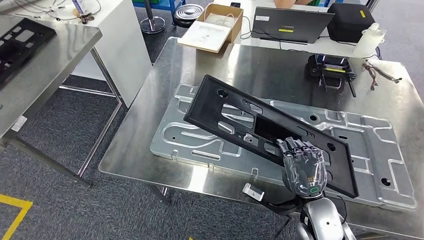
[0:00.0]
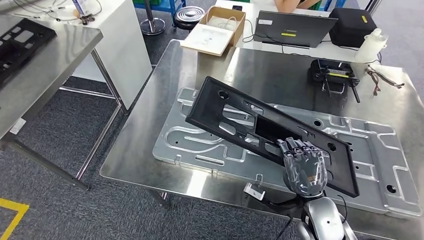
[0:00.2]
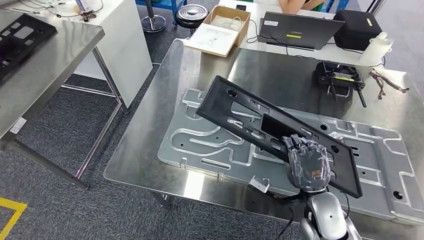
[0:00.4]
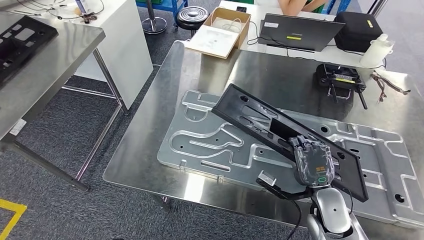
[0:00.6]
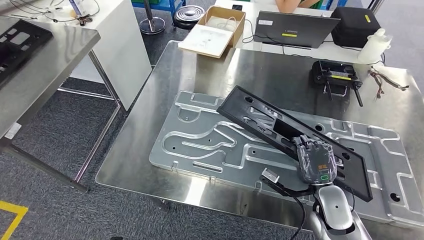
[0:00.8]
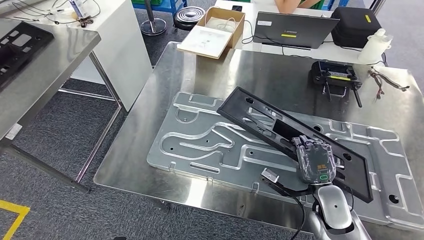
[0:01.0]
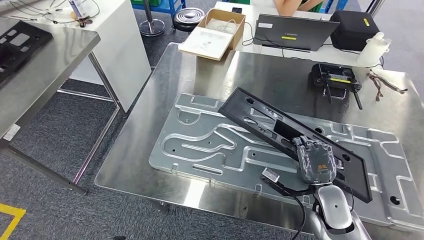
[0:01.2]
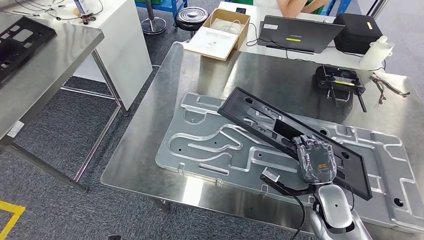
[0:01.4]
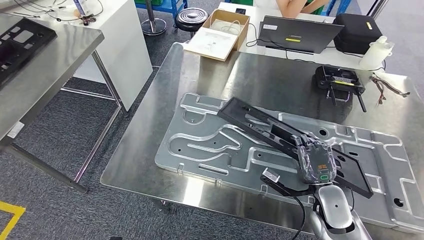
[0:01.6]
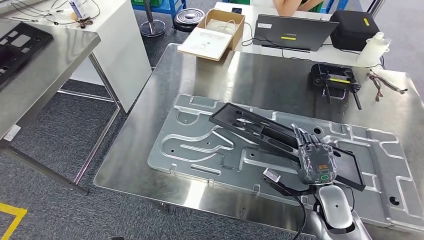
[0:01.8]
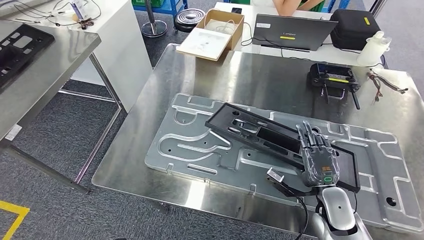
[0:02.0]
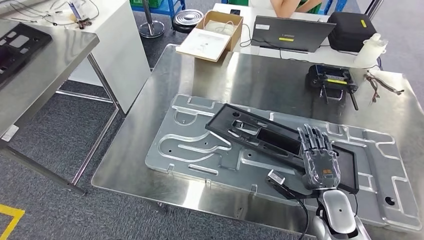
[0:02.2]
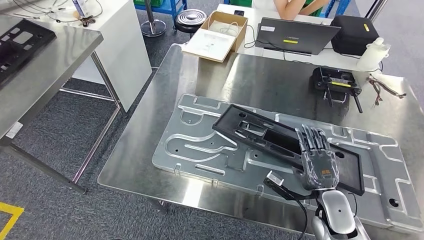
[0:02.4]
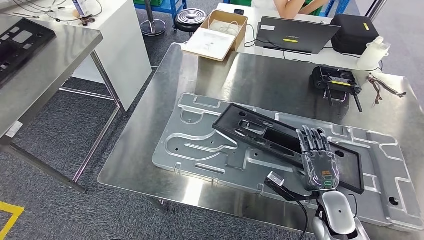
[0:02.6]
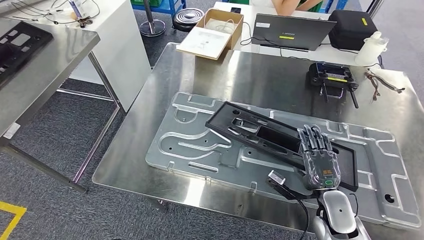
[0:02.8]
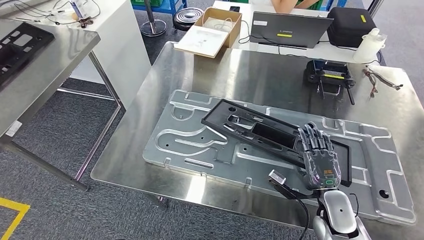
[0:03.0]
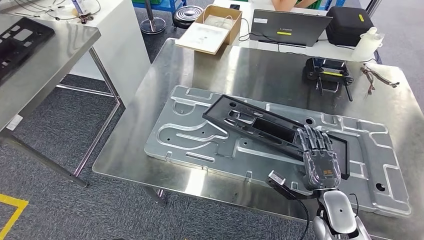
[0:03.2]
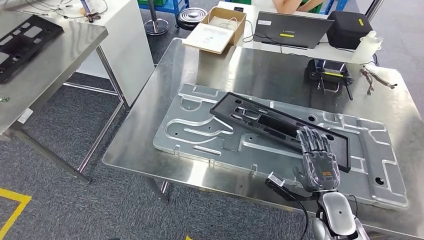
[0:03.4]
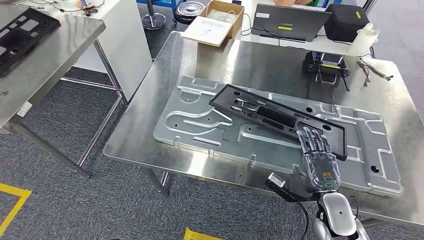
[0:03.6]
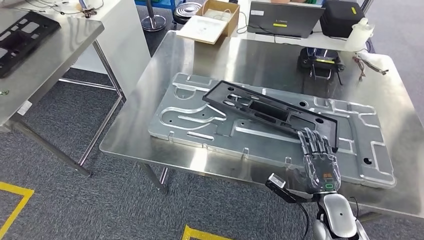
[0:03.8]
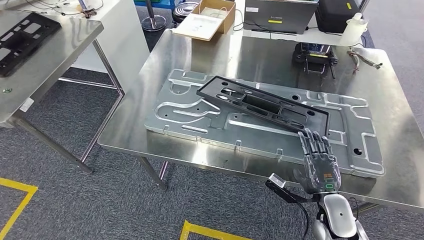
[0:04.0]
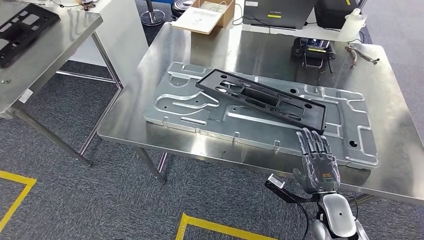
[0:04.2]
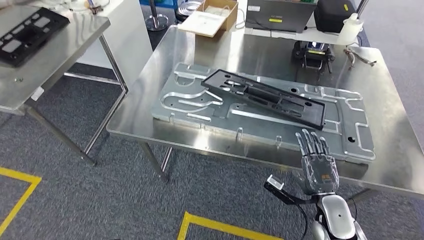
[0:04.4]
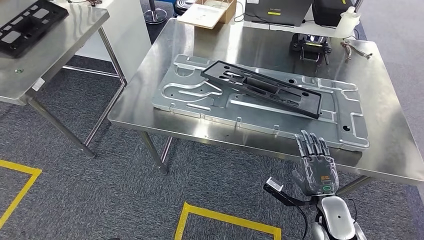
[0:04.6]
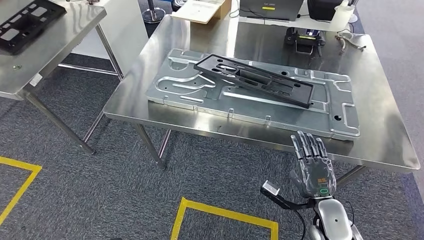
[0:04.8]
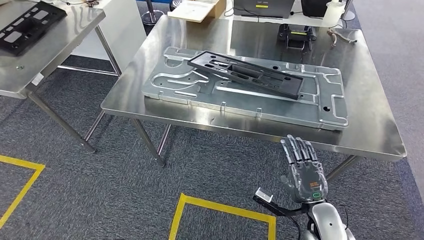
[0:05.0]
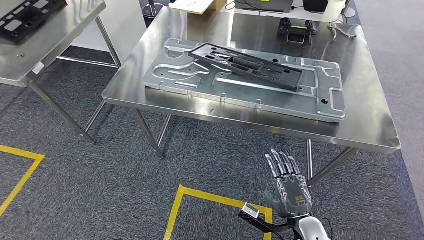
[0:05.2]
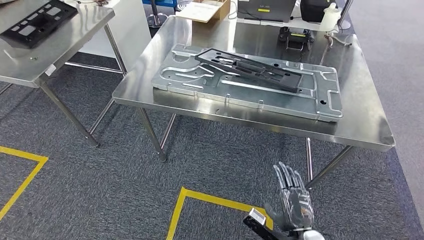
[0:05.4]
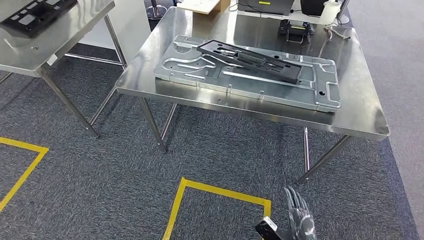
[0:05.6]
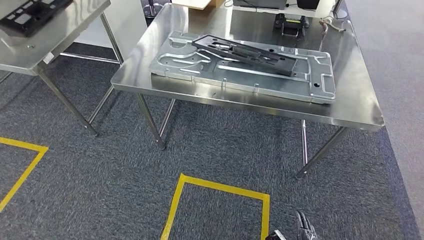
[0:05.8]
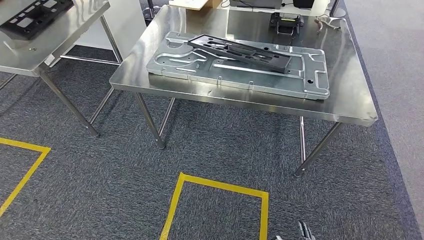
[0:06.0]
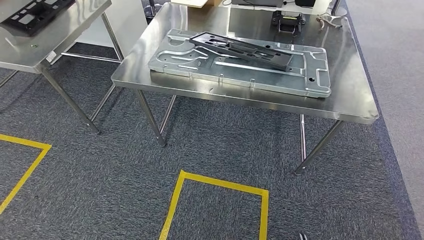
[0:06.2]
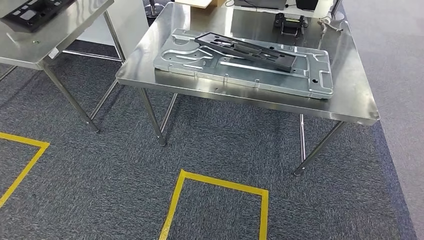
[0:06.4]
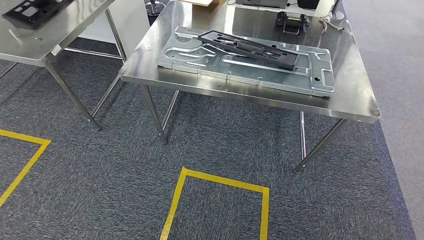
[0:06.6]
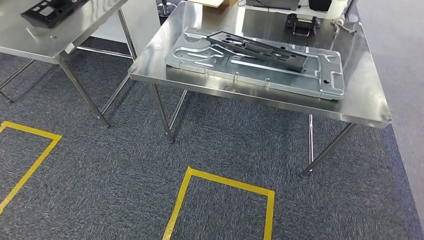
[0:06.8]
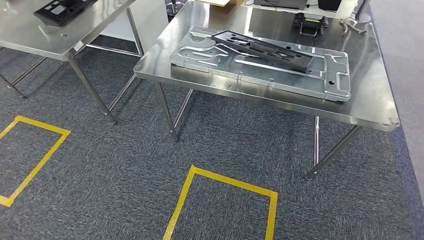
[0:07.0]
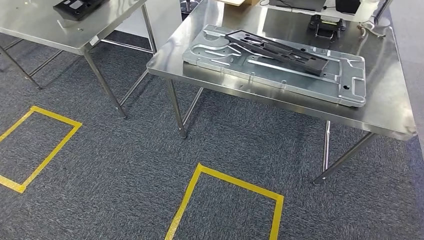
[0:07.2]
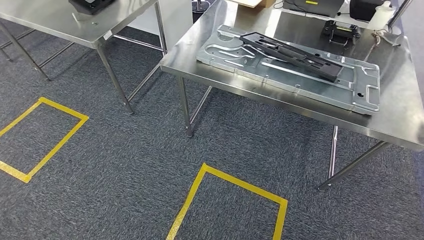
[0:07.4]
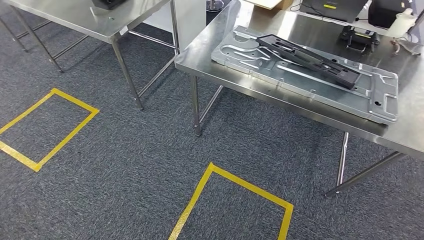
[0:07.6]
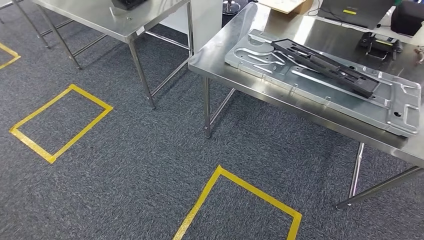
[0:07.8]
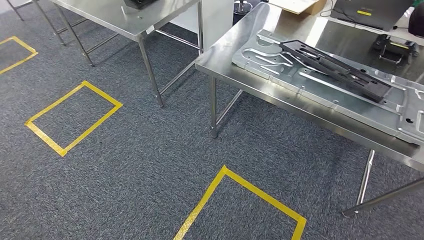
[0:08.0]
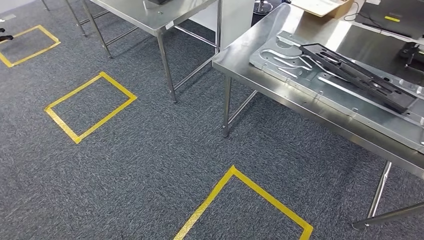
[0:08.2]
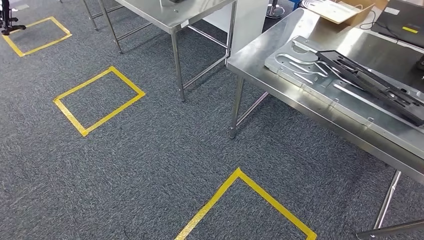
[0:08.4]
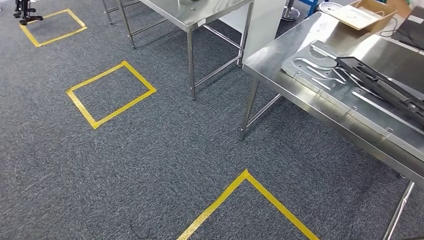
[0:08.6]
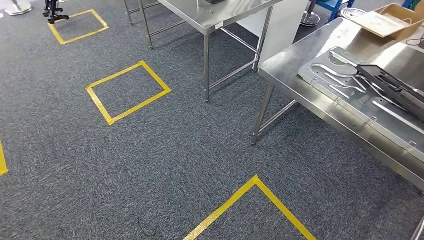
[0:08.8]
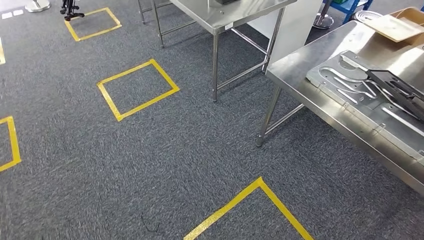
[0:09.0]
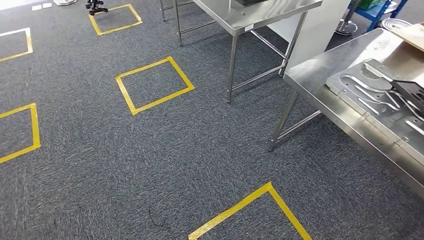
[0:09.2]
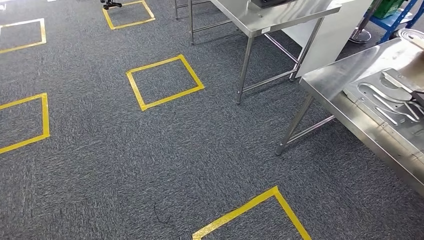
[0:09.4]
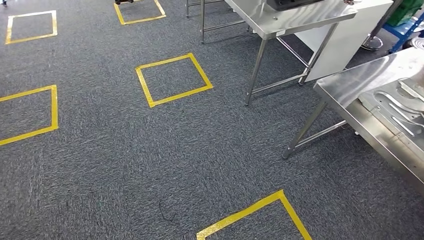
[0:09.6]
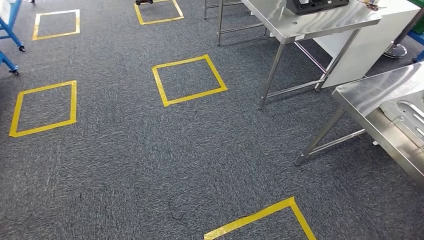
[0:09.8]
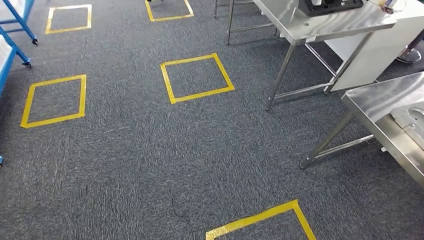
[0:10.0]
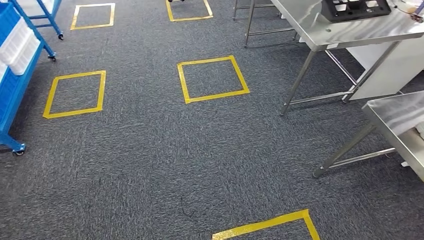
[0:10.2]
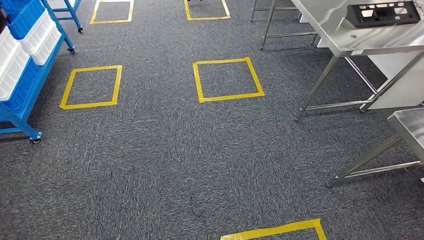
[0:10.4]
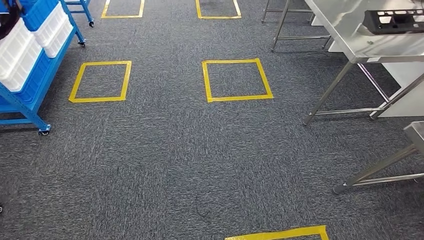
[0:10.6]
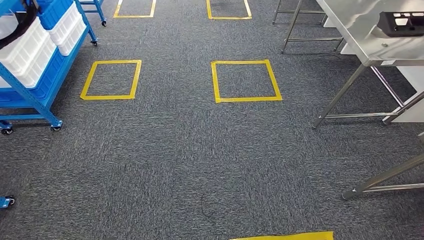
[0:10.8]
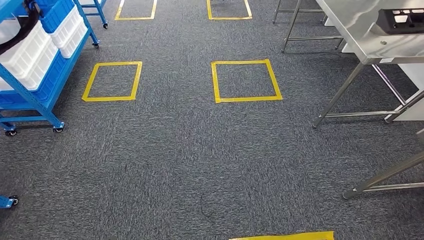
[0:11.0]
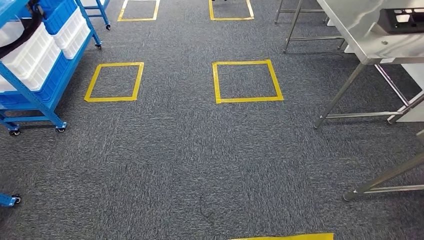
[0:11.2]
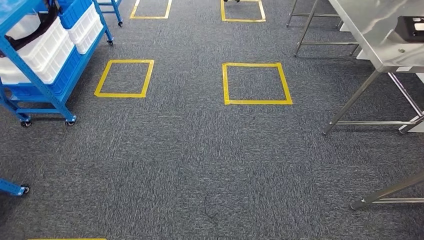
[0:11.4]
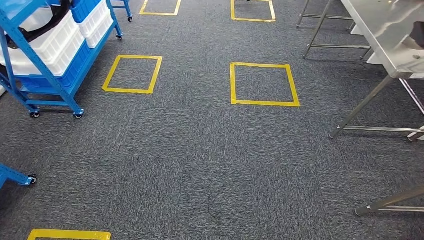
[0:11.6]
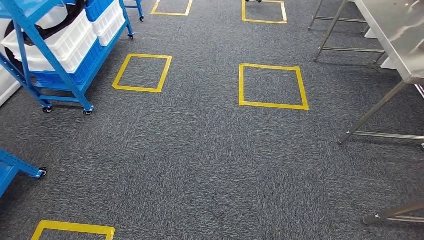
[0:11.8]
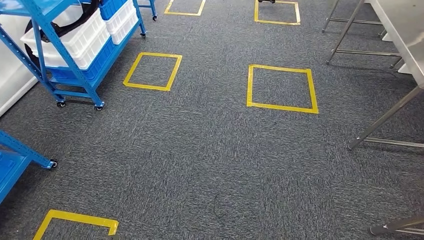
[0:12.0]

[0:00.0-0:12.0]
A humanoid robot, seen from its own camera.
Step, 0:00.0 to 0:05.4: Insert the large material into the corresponding slot on the workbench.

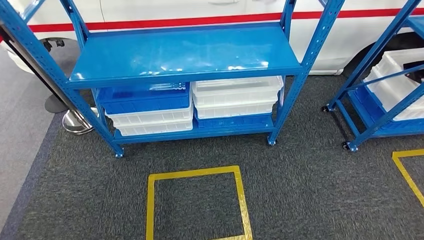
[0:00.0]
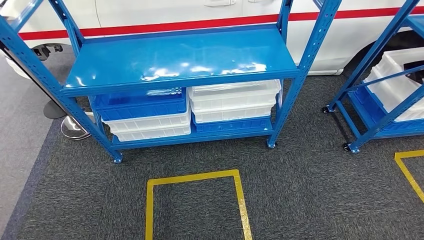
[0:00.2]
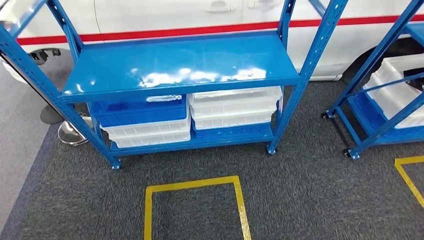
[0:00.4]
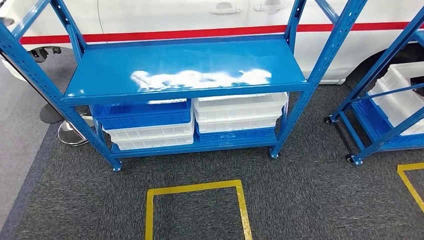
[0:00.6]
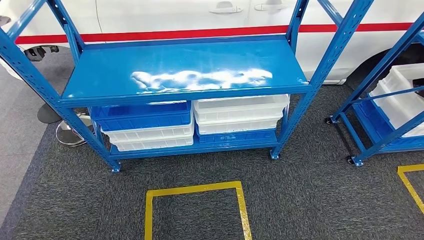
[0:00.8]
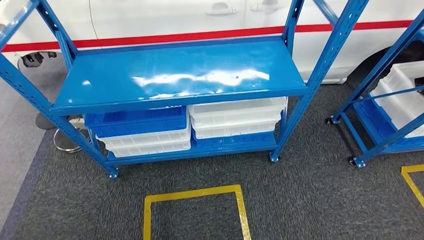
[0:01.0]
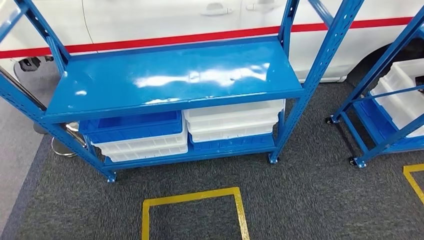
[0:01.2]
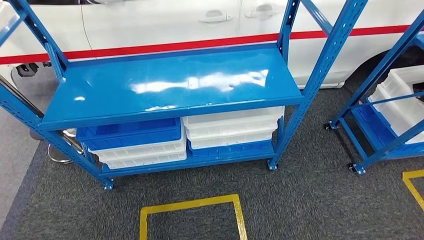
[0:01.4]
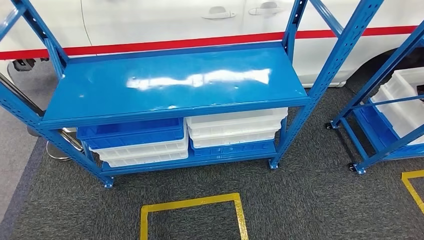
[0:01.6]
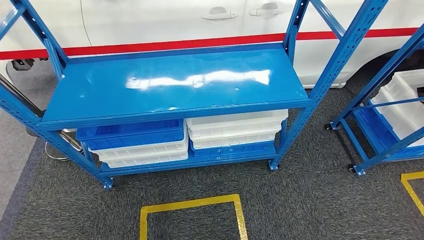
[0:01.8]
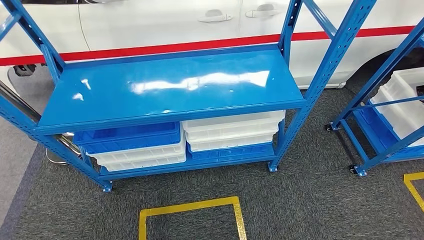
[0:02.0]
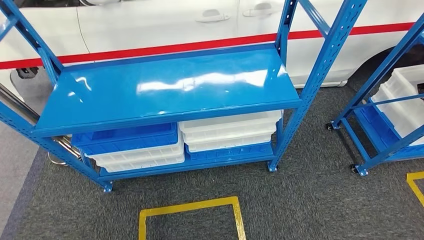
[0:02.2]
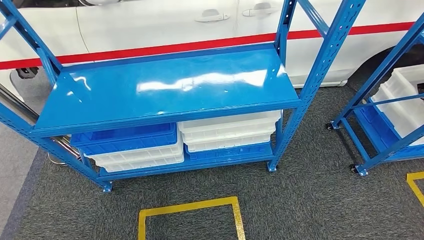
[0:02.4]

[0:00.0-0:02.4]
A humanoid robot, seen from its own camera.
Step, 0:00.0 to 0:02.4: Move to the initial position of the shelf.

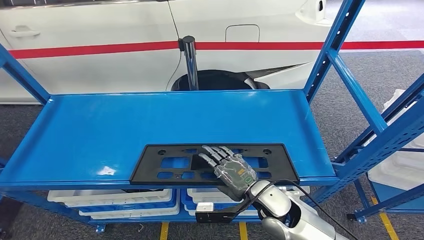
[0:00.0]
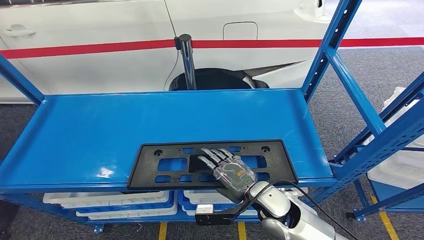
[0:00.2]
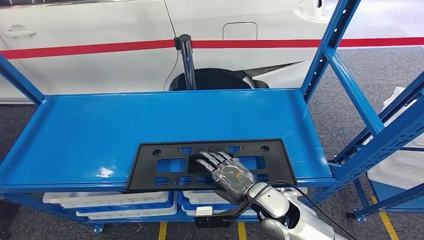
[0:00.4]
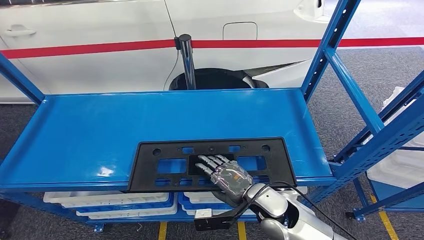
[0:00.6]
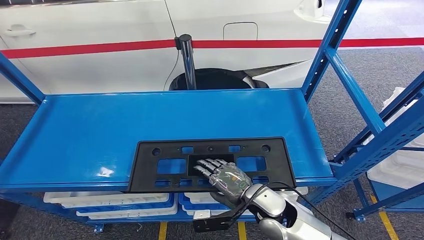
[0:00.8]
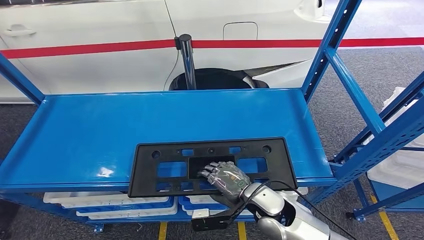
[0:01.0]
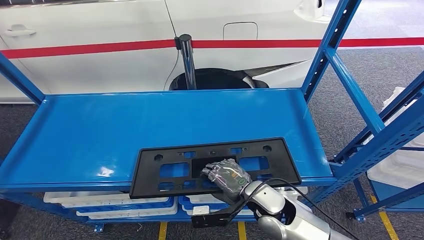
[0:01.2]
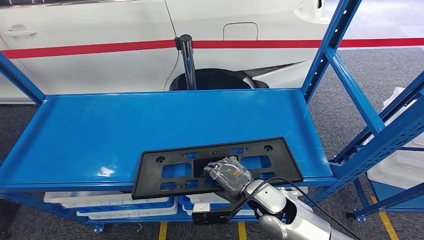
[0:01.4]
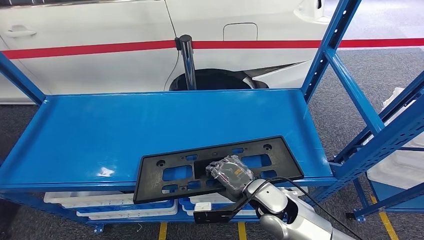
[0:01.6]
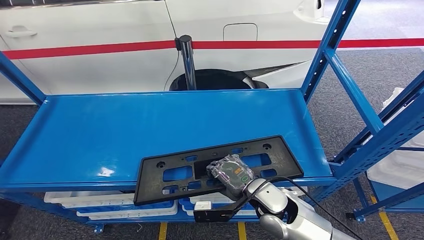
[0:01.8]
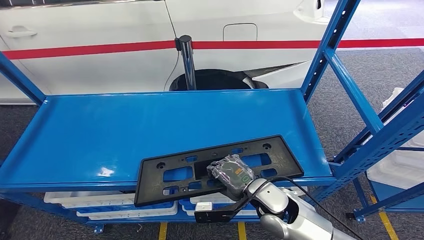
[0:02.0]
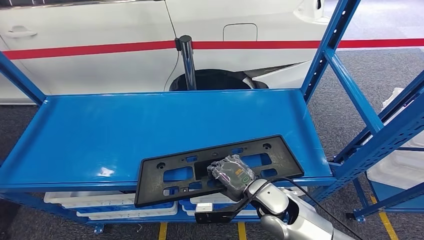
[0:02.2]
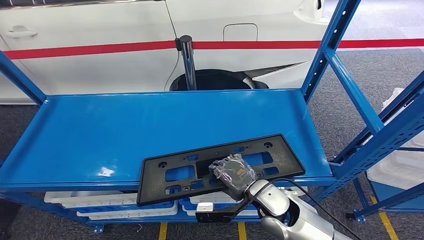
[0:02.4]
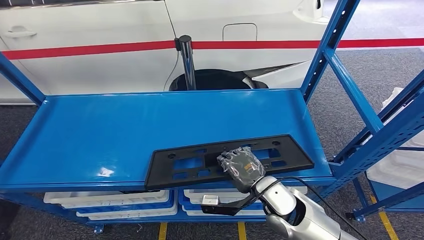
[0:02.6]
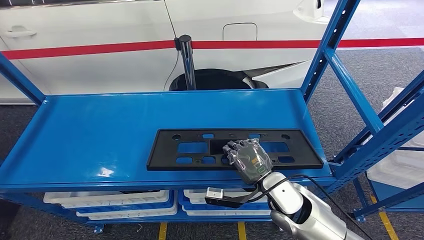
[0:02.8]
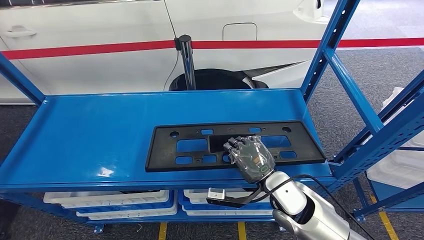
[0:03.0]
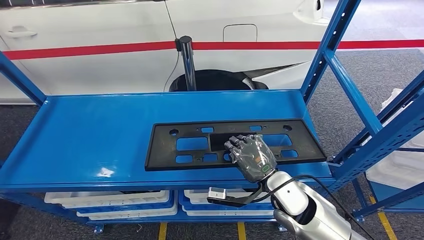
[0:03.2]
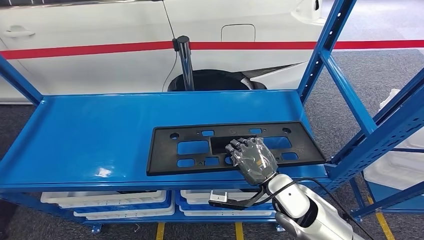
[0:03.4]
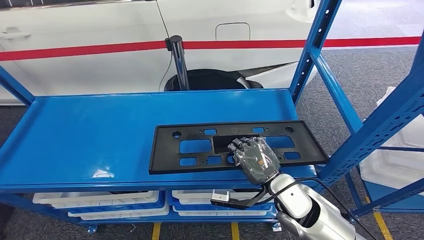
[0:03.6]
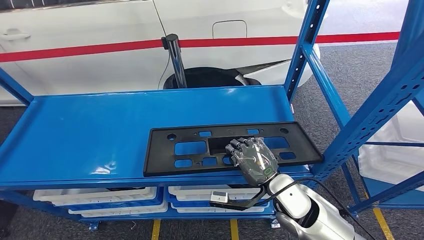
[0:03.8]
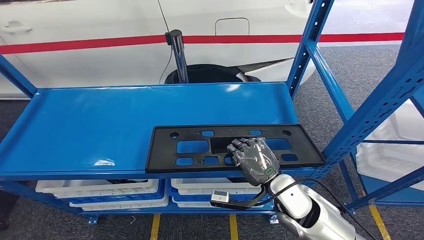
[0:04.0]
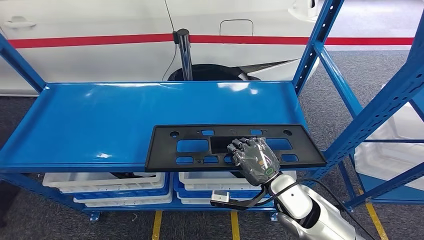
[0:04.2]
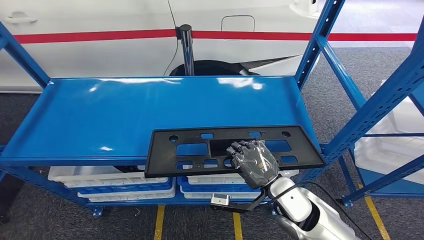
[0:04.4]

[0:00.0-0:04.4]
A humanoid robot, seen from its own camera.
0:00.0 to 0:01.4: There are only small adjustments of the hands.
